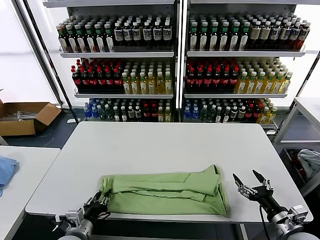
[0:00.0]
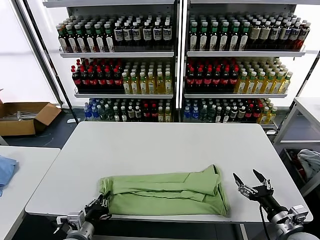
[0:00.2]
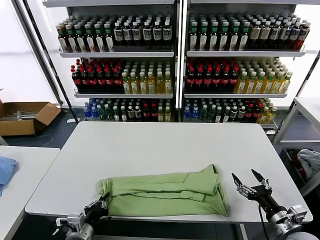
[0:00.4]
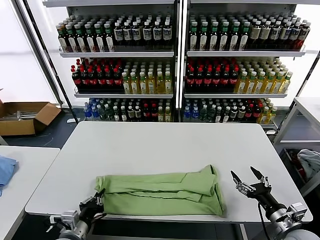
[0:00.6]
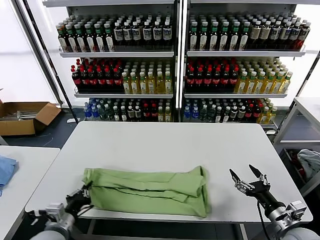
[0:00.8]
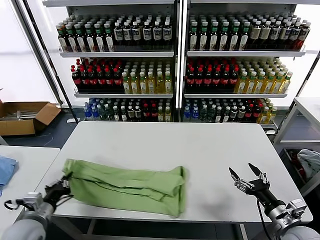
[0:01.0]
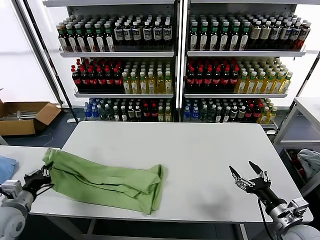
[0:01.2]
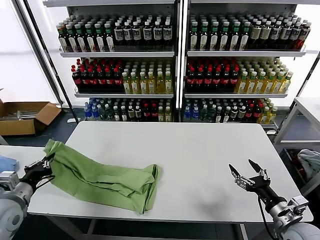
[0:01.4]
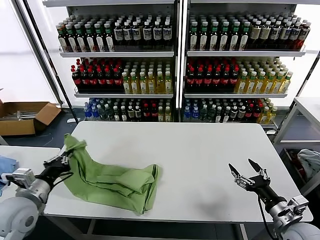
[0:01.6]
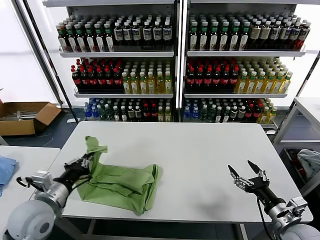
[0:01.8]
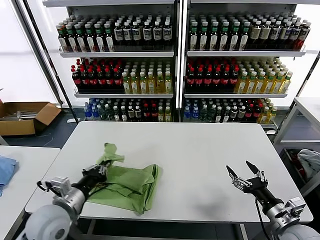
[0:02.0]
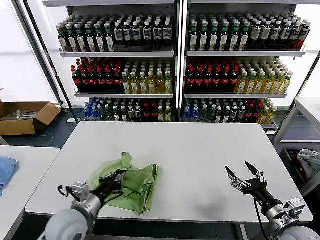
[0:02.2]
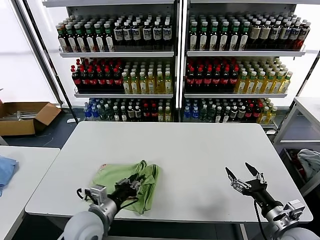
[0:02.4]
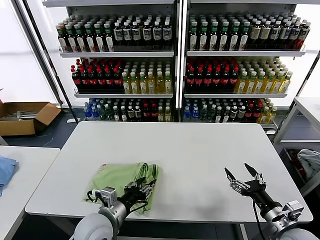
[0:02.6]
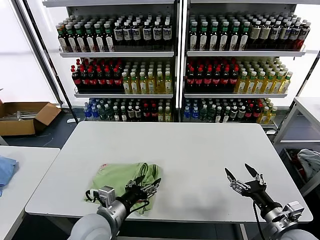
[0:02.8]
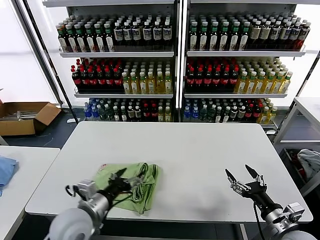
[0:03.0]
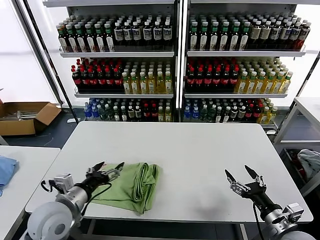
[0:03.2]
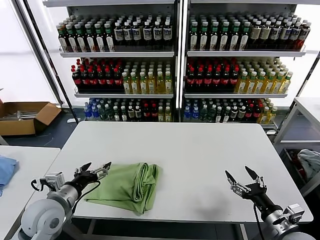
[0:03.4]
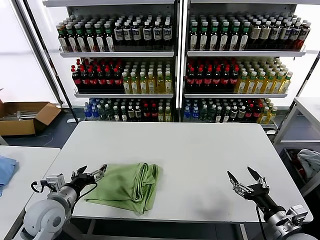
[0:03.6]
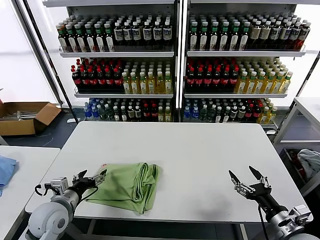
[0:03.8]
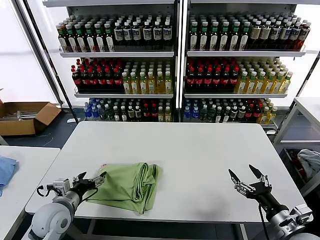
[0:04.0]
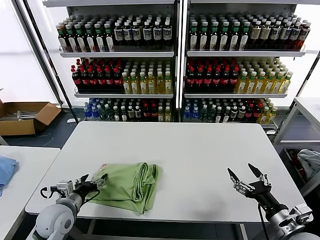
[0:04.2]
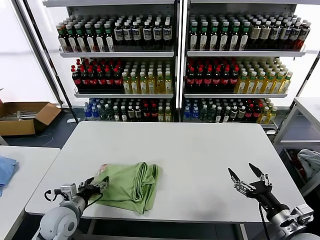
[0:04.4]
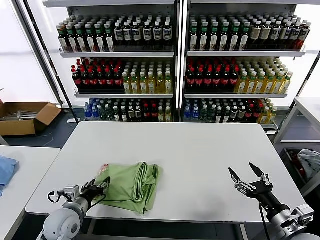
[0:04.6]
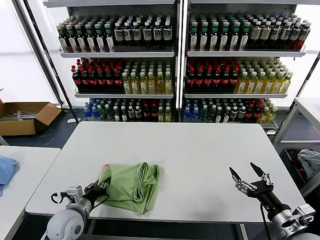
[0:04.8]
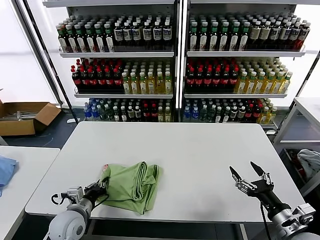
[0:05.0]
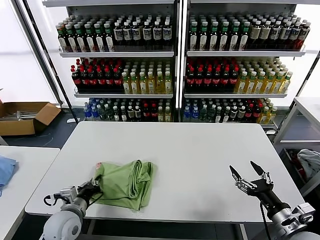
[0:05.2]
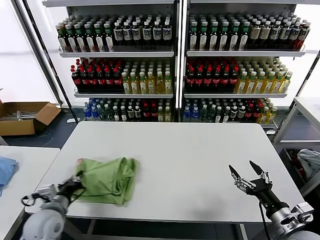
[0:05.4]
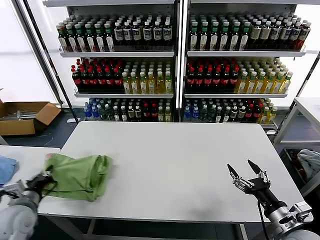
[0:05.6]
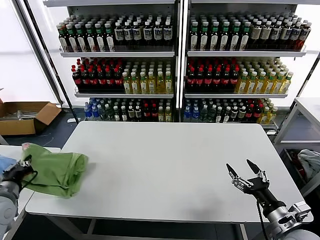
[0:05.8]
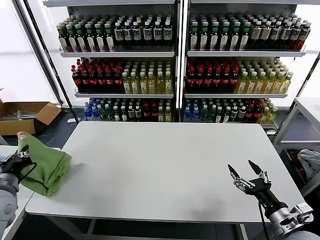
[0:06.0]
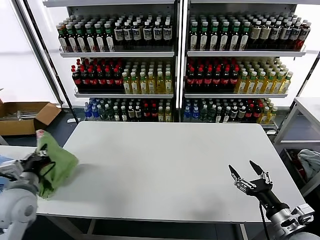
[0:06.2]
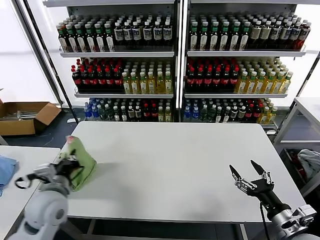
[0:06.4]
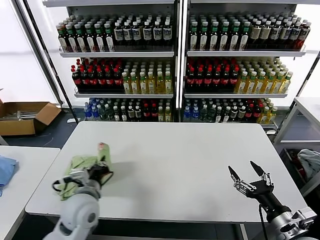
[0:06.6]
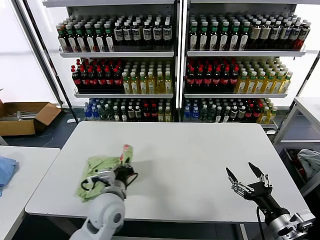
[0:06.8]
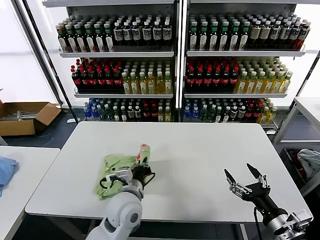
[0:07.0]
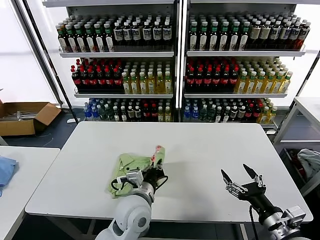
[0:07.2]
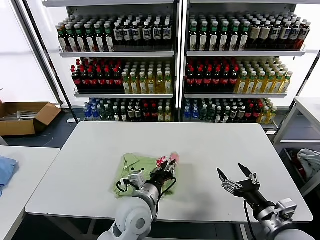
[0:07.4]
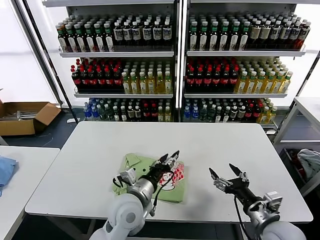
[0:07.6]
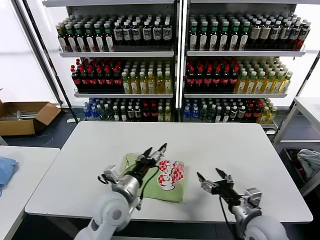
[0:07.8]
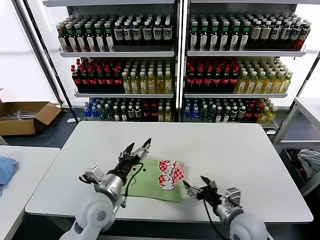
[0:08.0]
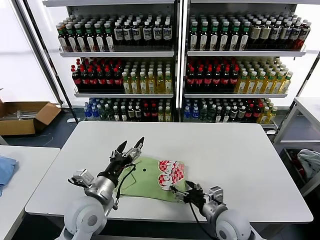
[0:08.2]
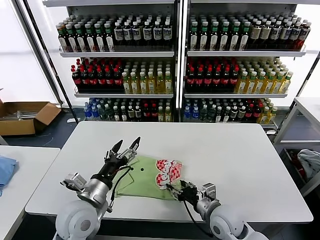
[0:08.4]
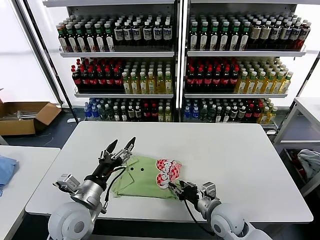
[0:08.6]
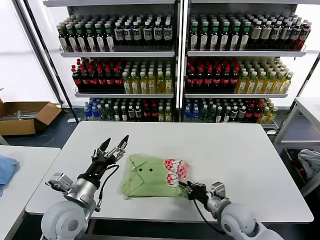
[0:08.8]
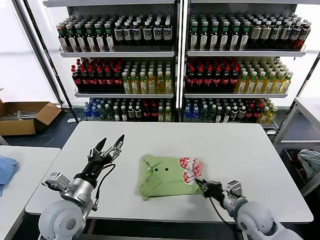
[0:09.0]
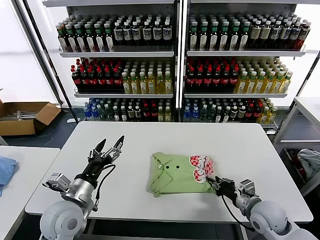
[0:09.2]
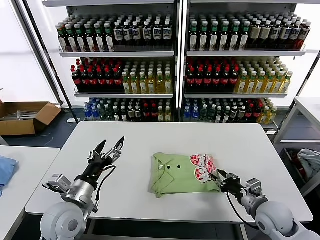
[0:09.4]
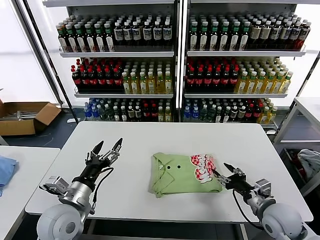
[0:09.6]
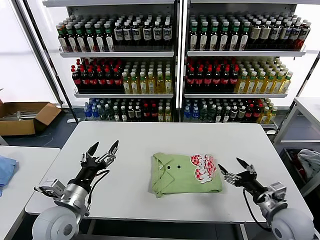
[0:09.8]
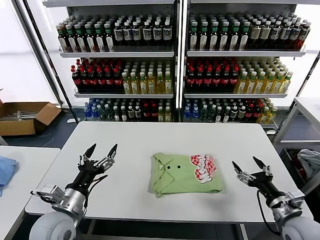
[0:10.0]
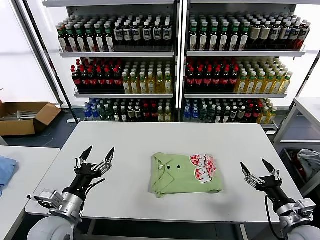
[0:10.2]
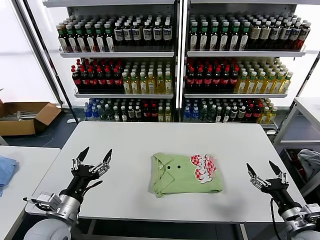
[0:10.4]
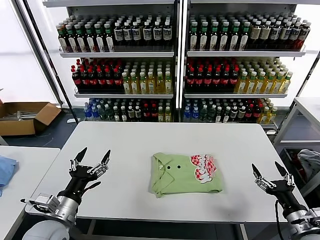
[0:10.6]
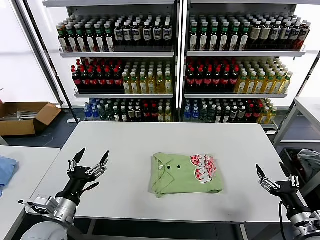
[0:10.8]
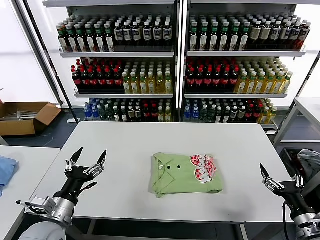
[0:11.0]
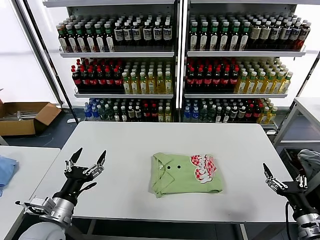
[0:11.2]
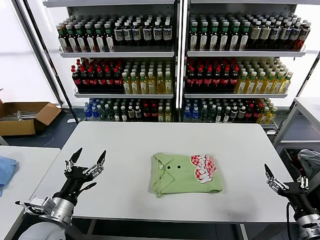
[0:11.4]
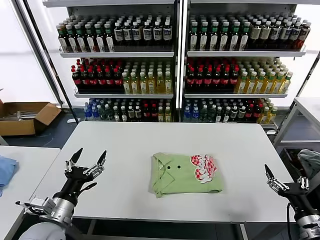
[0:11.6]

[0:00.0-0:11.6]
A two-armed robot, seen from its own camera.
Task of the whole recording: fold and organize the clothes.
Step, 0:00.6 to 0:02.6: use the left gripper to drag the left edge of the fabric to the left and folds it over the right edge.
Step, 0:02.8 to 0:07.4: Flip the folded clothes over with left gripper.
Step, 0:07.8 to 0:09.6: Drag the clothes to the center of the table.
0:00.0 to 0:01.4: The left gripper goes approximately 20 cm to the left and upward, and closes up.
0:01.4 to 0:02.8: The left gripper is displaced to the right by about 25 cm, and opens.
0:02.8 to 0:04.4: The left gripper heads to the left and downward, covering roughly 15 cm.
0:04.4 to 0:05.8: The left gripper travels to the left and upward by approximately 15 cm, and closes its fingers.
0:05.8 to 0:07.2: The left gripper goes about 35 cm to the right.
0:07.2 to 0:08.8: The right gripper travels forward, to the left and downward by roughly 20 cm, and closes up. Meanwhile the left gripper heads to the left, covering roughly 15 cm, and opens.
0:08.8 to 0:10.2: The right gripper shifts about 20 cm to the right and backward, and opens its fingers.
0:10.2 to 0:11.6: The right gripper shifts by roughly 5 cm.
